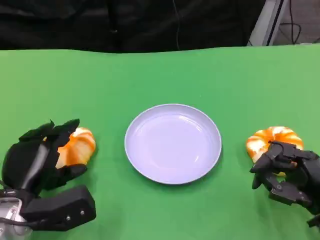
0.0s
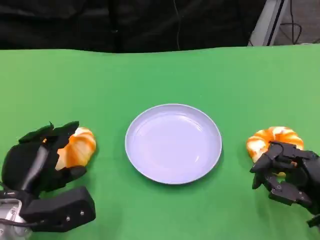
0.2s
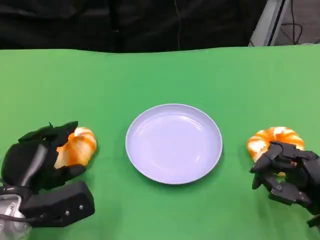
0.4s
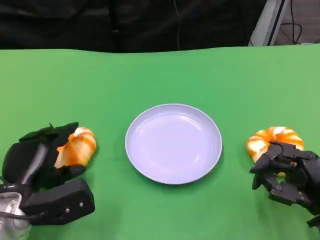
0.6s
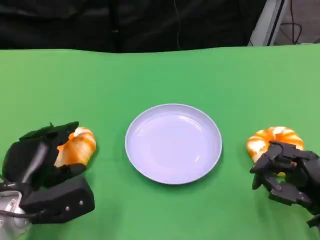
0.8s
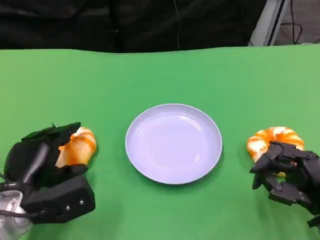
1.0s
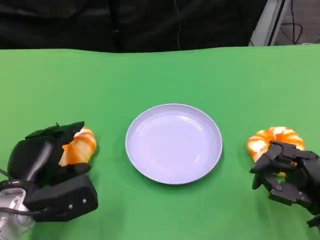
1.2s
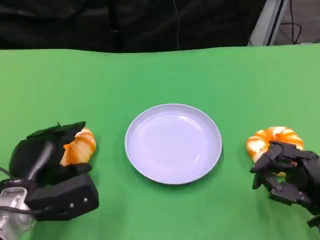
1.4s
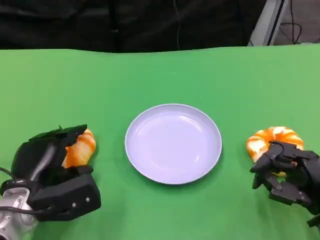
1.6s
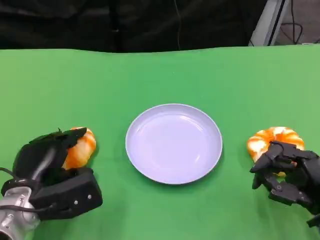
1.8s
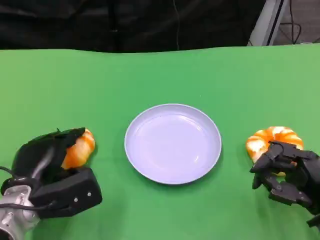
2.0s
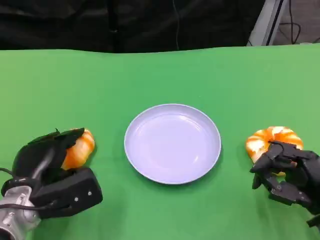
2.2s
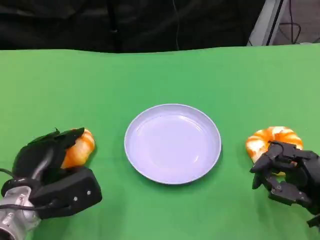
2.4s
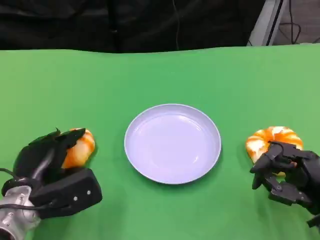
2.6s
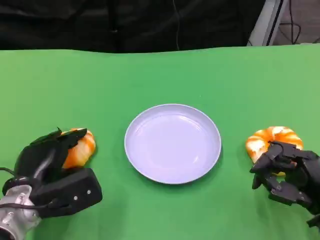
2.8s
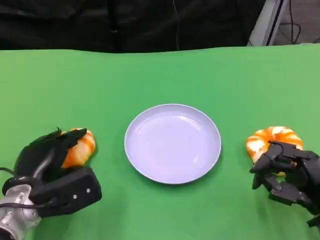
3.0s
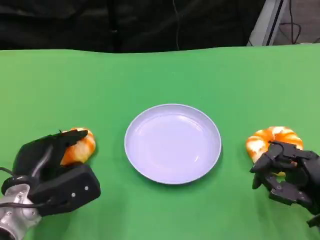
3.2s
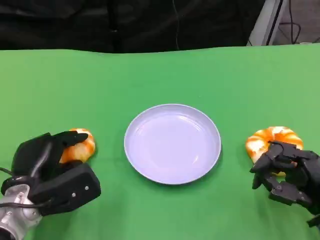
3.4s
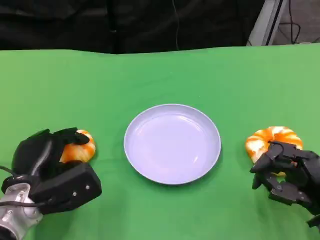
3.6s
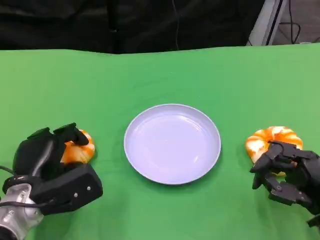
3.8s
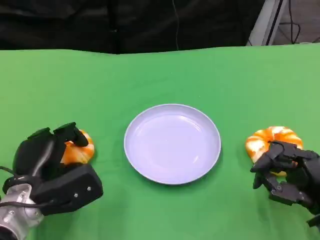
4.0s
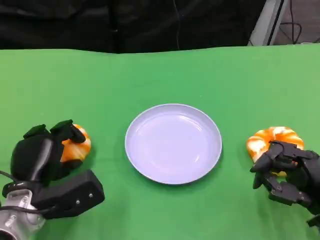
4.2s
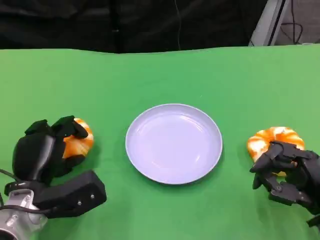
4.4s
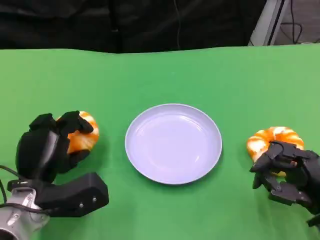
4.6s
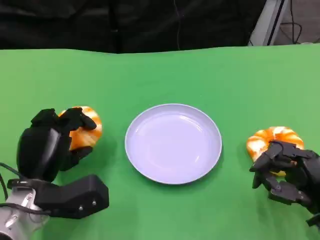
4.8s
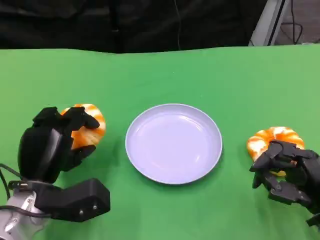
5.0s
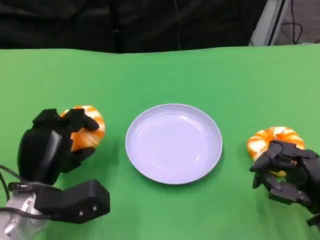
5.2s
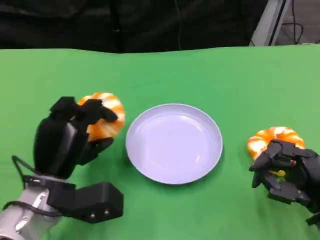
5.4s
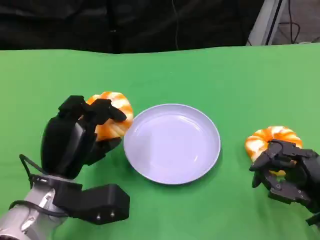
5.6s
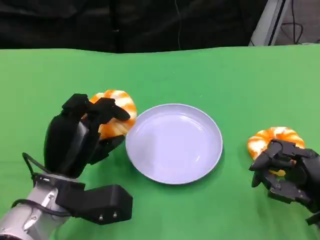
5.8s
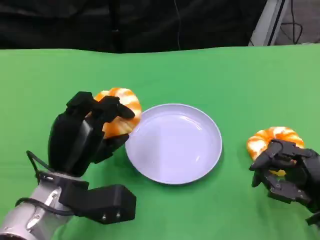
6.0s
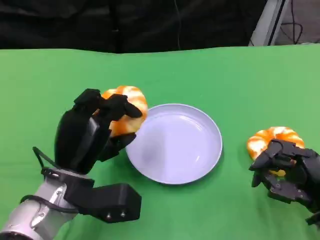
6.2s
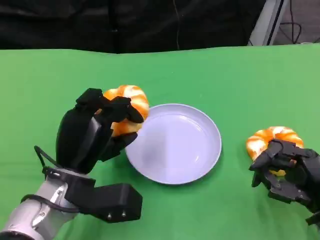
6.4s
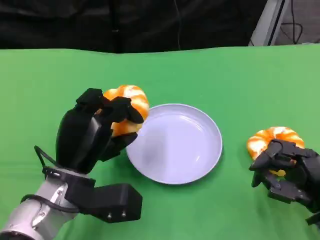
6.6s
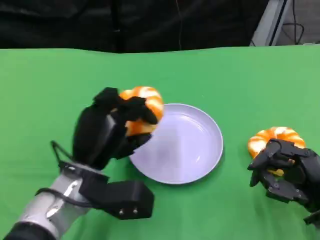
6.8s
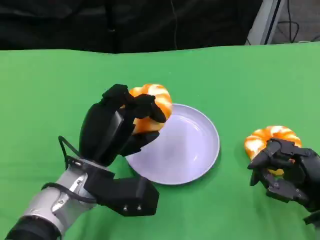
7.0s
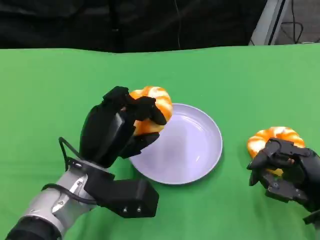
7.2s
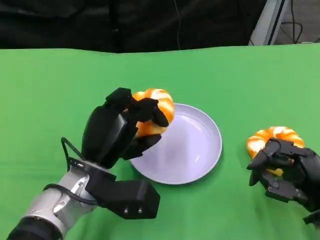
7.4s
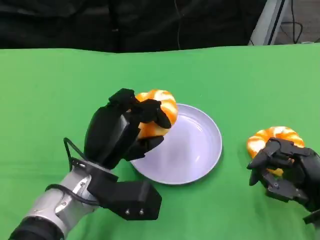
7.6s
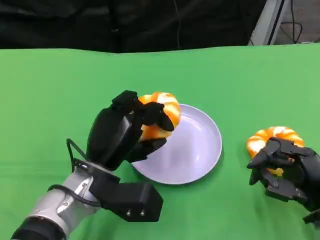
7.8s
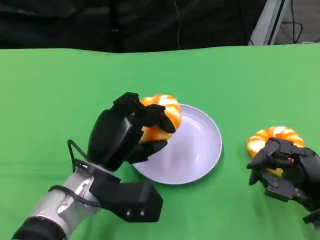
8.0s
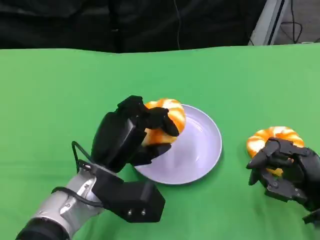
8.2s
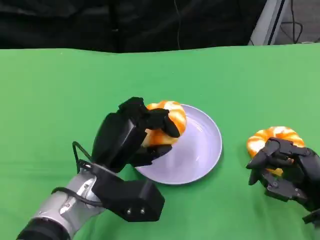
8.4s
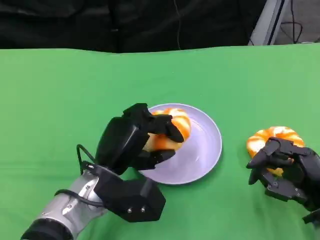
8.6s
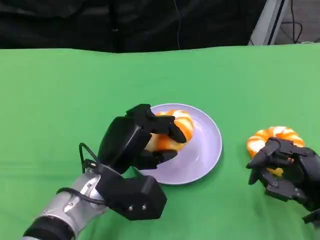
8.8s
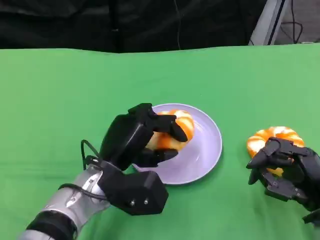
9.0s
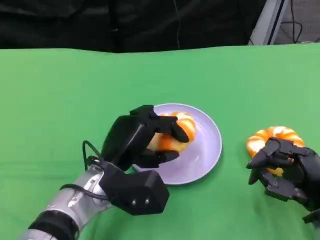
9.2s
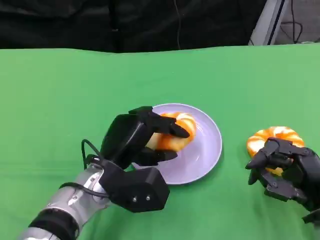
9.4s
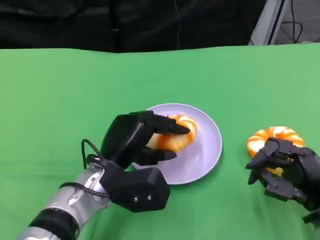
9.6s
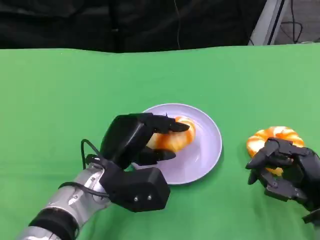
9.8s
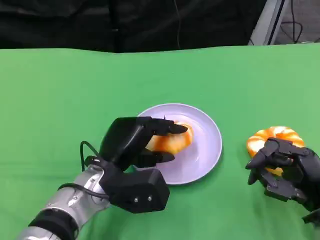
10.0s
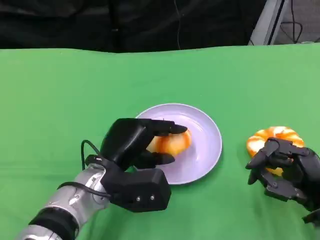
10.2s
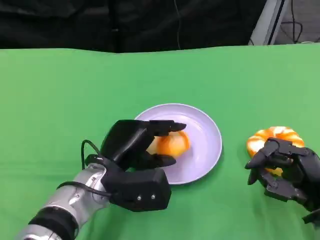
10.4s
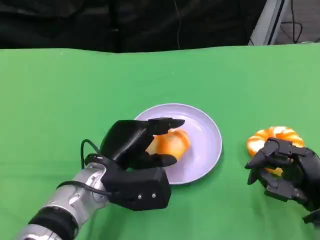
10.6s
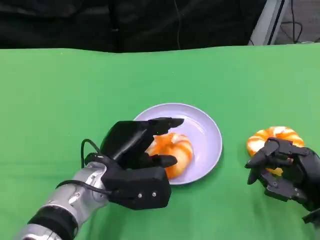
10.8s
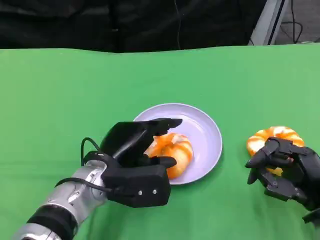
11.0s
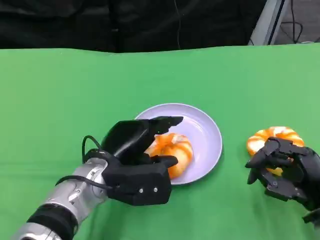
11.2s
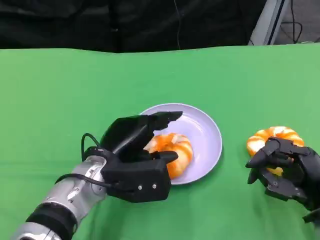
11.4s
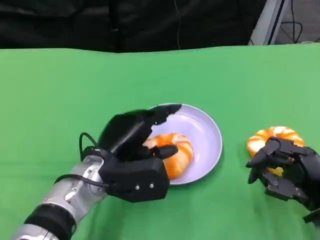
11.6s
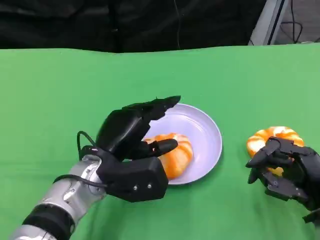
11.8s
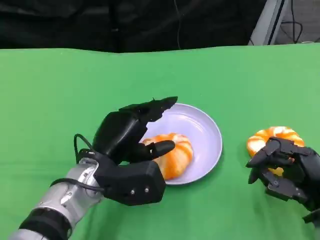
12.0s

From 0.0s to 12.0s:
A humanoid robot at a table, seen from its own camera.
Task of the whole recording: Grasp the bread from the table and place it into the plate.
From 0.0s to 4.4s: There are only small adjustments of the hands.
From 4.4s to 6.0s: The left hand changes place by about 5 cm.
From 7.6s to 9.0s: There are only small adjustments of the hands.
From 9.0s to 12.0s: There are only small adjustments of the hands.

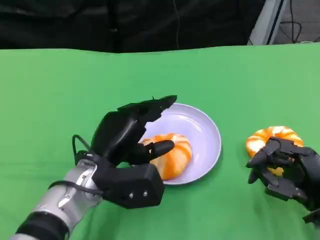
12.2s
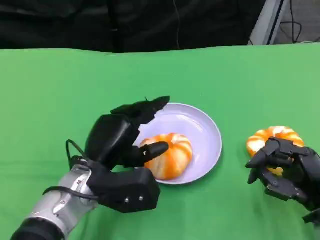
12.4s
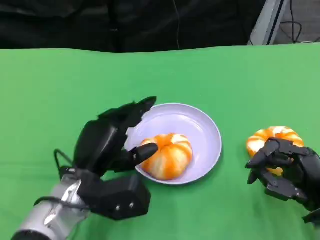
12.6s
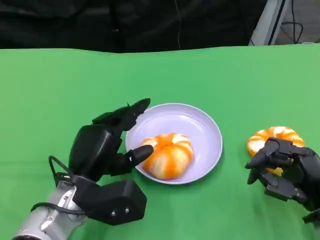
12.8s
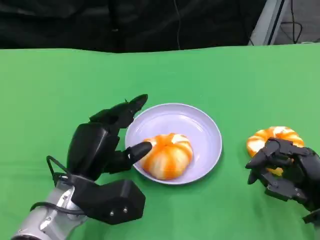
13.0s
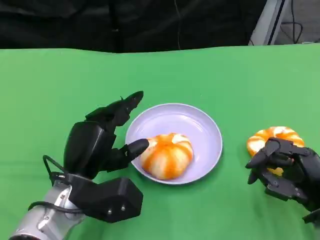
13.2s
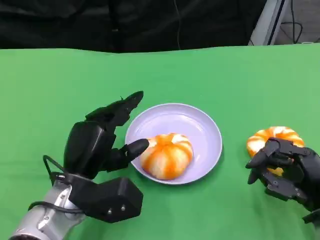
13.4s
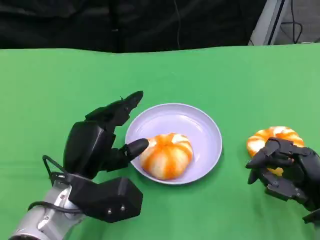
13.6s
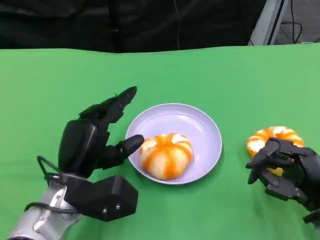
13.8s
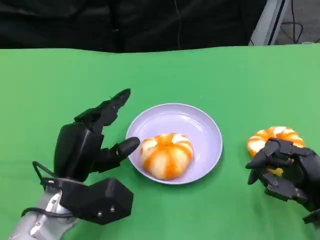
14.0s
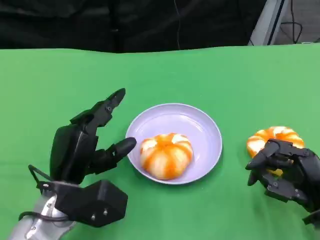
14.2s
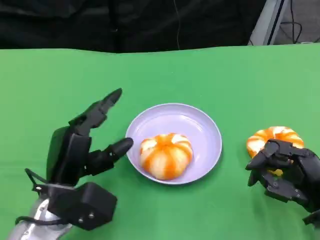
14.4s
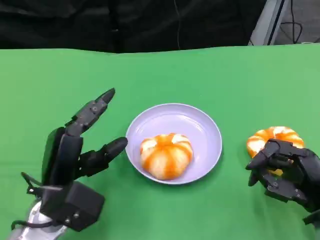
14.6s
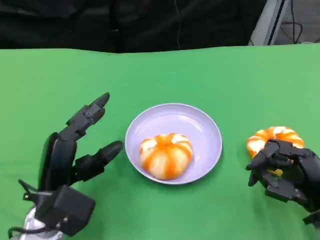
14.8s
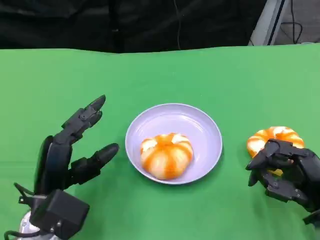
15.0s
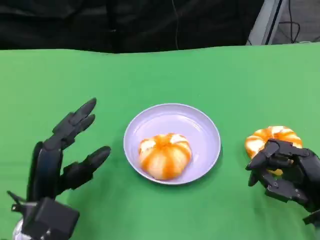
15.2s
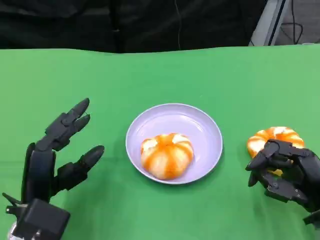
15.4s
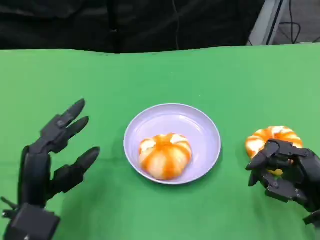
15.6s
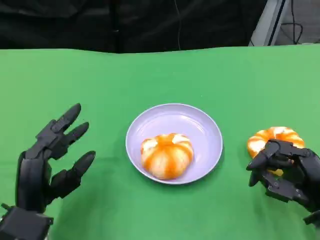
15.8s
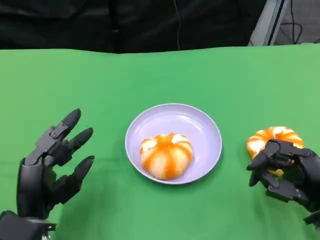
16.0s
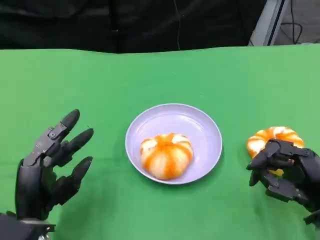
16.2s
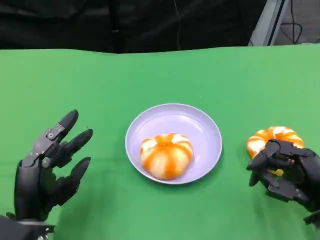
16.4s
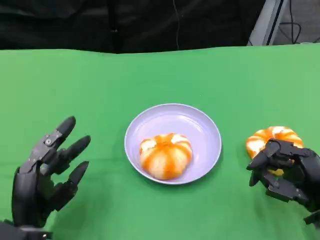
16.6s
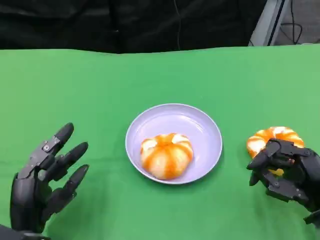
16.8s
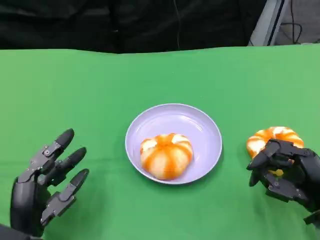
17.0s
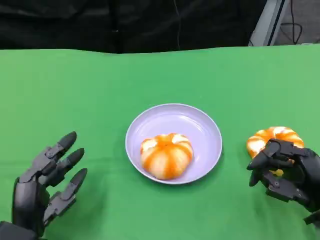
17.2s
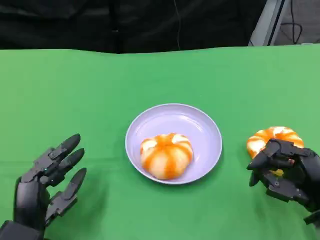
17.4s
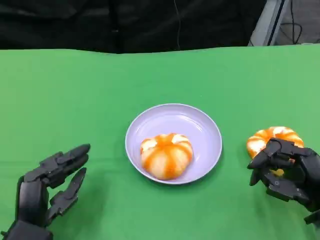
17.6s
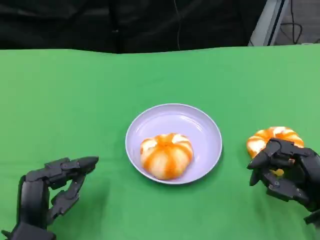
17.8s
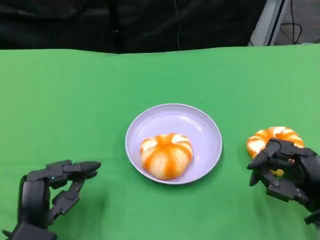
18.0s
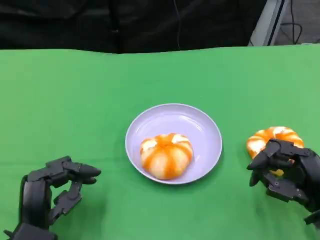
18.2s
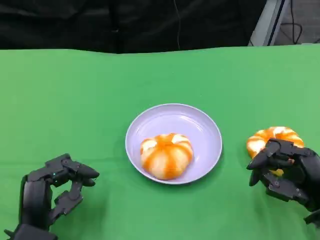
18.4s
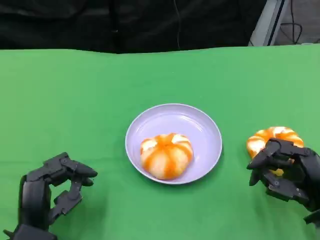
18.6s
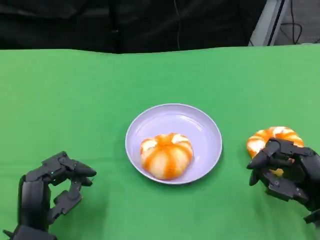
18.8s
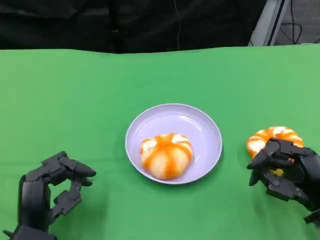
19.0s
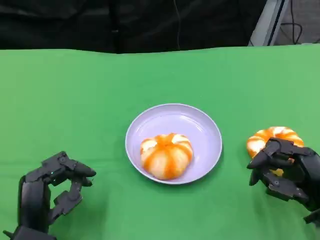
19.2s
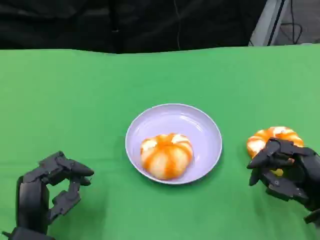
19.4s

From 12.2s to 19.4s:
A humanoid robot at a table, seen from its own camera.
Task of the whole recording: Grasp the bread from the table and place it into the plate.
From 12.2s to 13.6s: The hands move only a little.
From 15.0s to 16.6s: The left hand ends up some 5 cm from where it was.
From 16.6s to 18.0s: The hands stay close to where they were, moving slightly.
From 18.0s to 19.4s: The two hands keep their place.

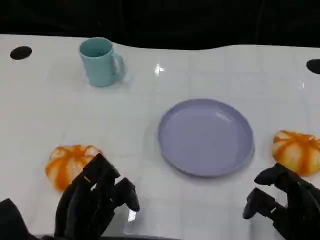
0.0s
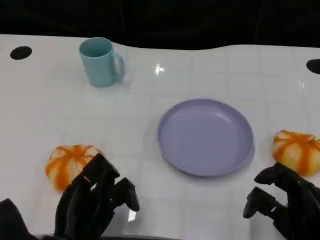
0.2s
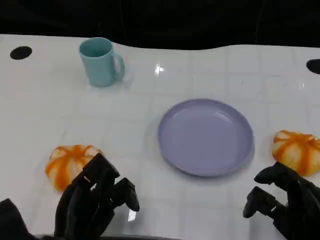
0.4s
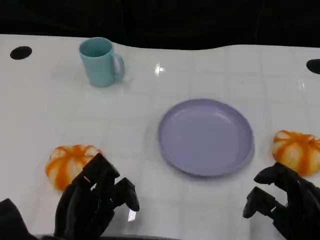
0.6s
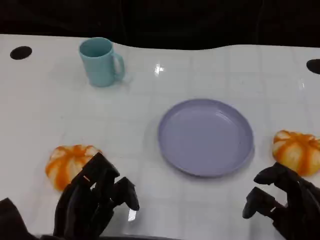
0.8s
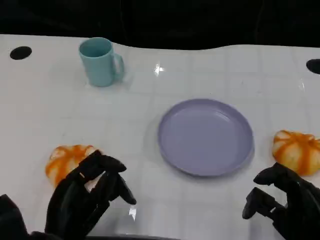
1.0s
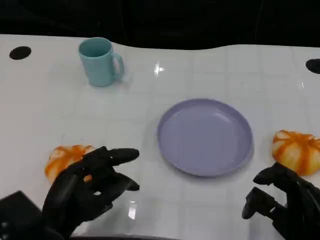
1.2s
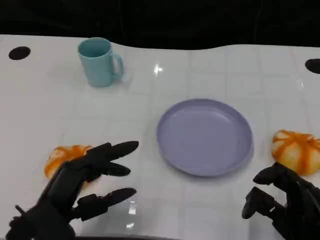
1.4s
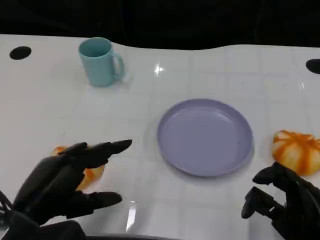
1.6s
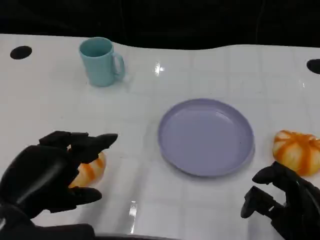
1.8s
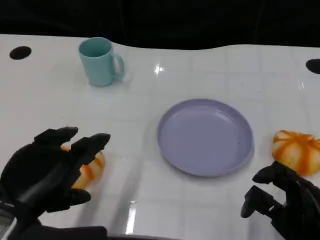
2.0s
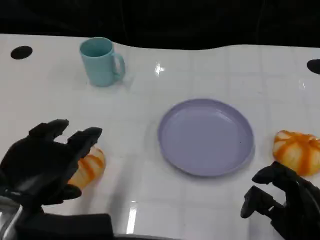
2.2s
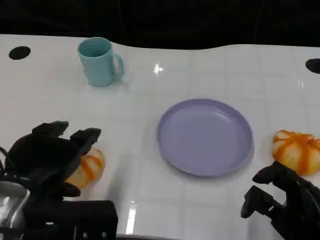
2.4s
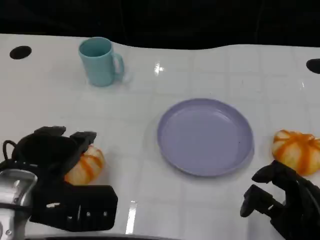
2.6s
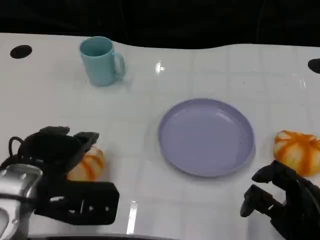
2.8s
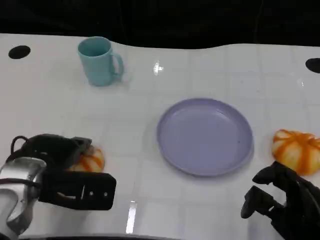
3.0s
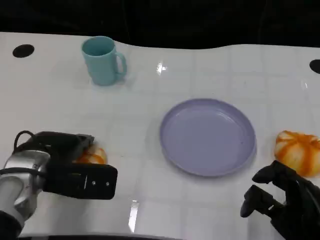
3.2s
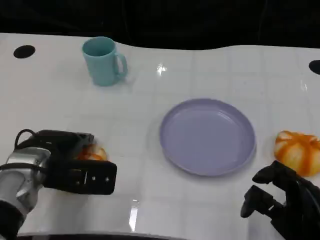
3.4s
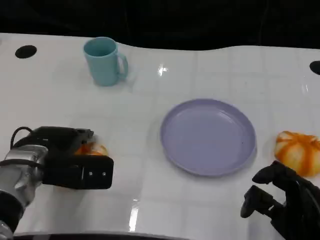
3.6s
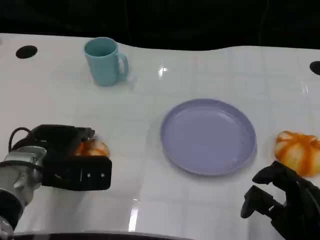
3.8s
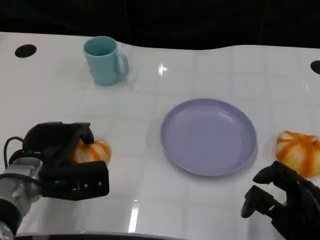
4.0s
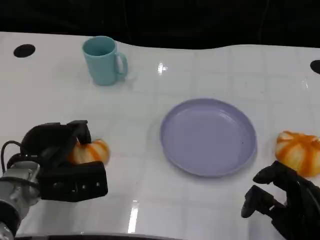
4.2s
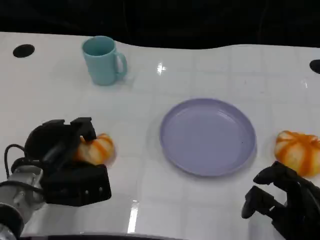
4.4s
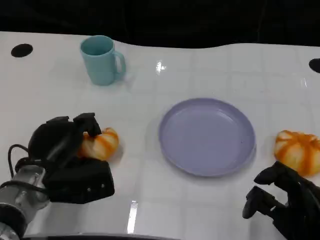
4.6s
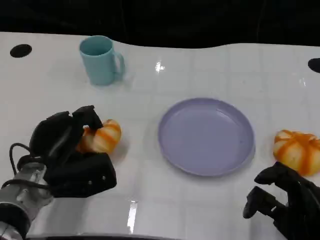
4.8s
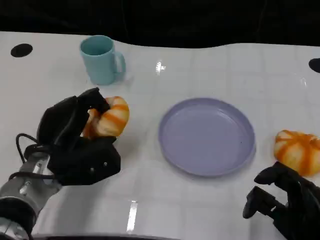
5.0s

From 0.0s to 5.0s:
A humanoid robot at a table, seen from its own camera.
Task of the whole recording: Grasp the bread from the table and place it into the plate.
From 0.0s to 1.6s: The left hand is displaced upward by about 10 cm.
From 1.6s to 3.4s: The left hand heads forward, covering approximately 10 cm.
